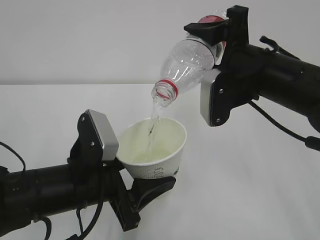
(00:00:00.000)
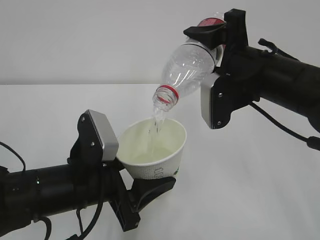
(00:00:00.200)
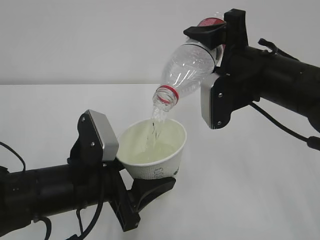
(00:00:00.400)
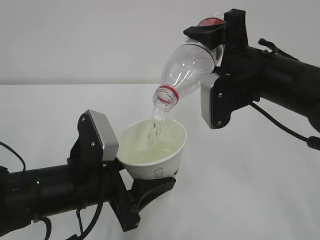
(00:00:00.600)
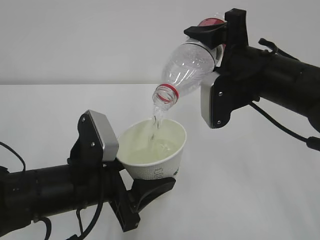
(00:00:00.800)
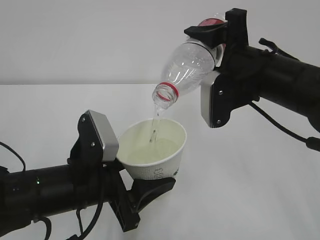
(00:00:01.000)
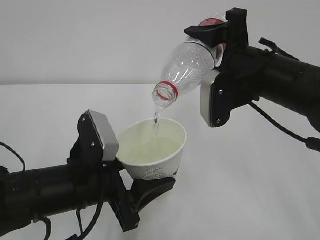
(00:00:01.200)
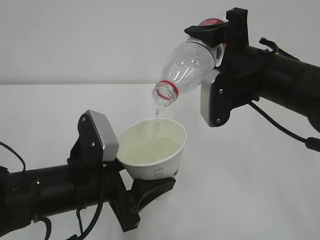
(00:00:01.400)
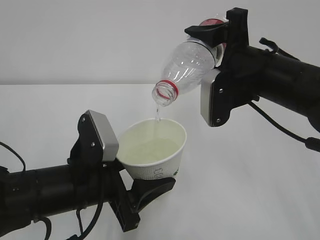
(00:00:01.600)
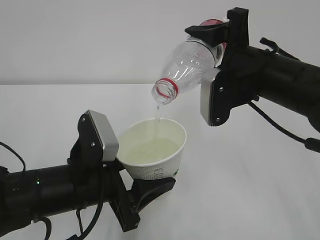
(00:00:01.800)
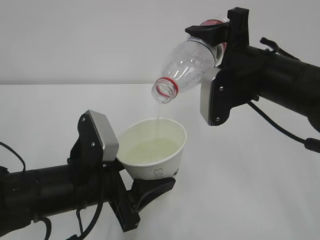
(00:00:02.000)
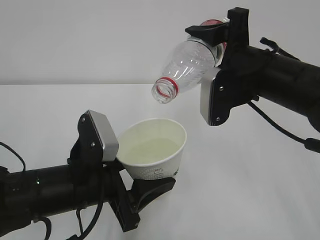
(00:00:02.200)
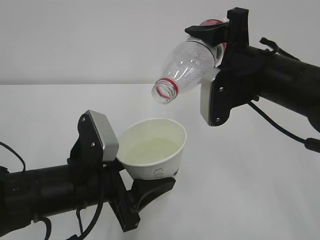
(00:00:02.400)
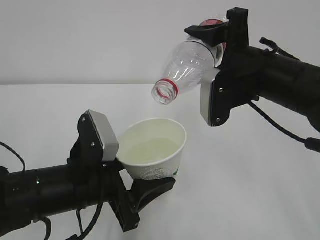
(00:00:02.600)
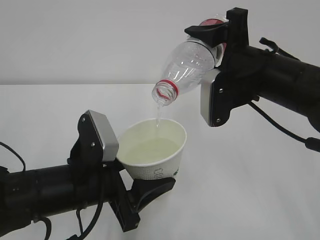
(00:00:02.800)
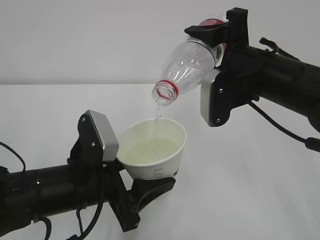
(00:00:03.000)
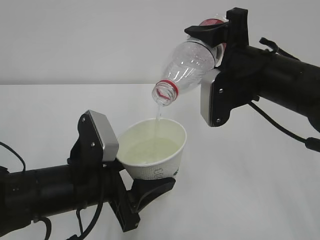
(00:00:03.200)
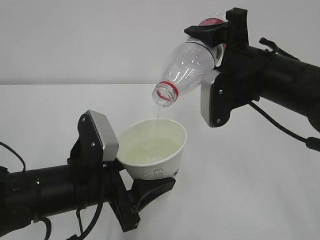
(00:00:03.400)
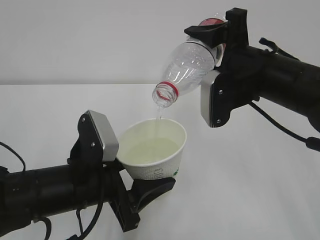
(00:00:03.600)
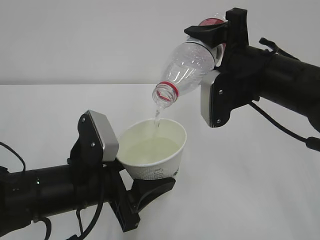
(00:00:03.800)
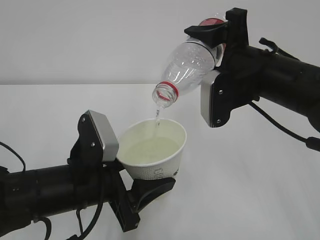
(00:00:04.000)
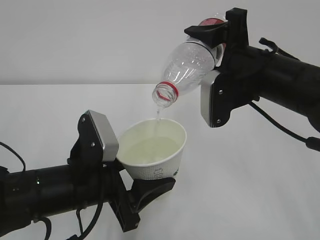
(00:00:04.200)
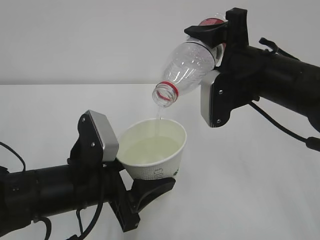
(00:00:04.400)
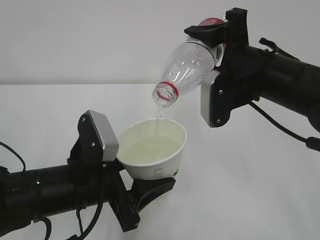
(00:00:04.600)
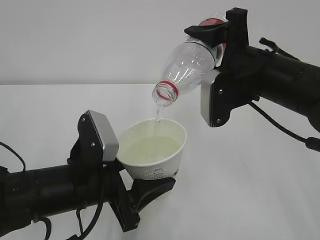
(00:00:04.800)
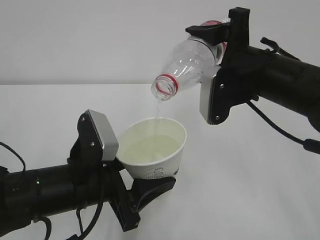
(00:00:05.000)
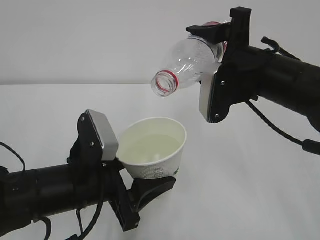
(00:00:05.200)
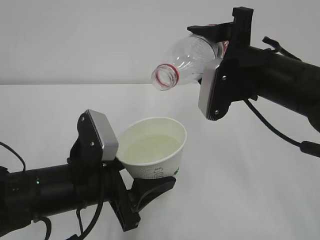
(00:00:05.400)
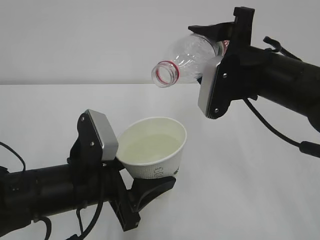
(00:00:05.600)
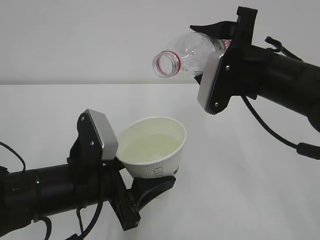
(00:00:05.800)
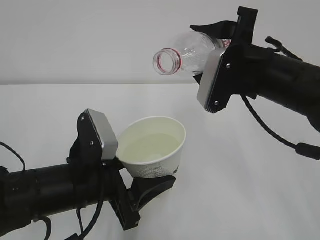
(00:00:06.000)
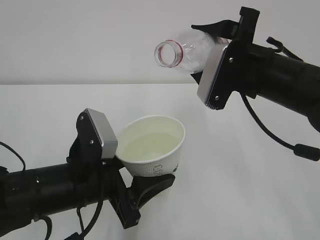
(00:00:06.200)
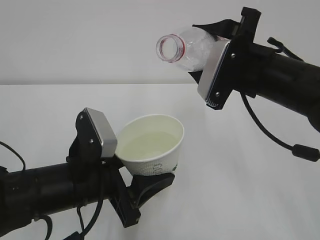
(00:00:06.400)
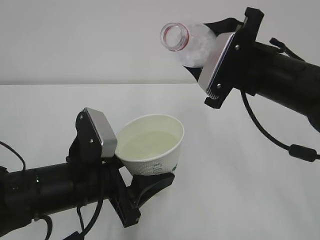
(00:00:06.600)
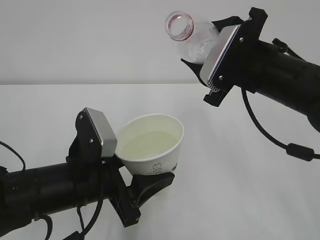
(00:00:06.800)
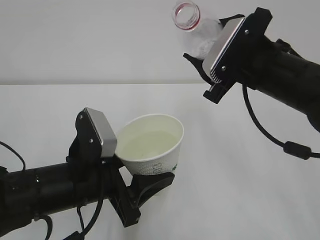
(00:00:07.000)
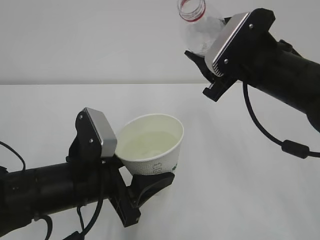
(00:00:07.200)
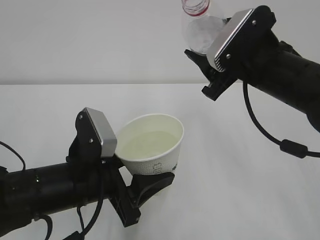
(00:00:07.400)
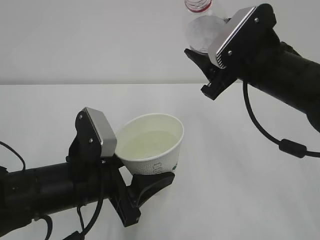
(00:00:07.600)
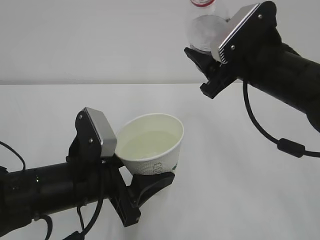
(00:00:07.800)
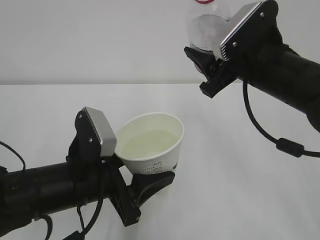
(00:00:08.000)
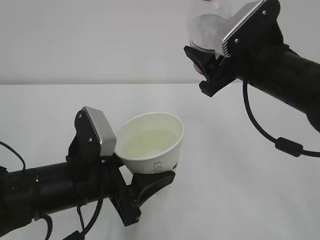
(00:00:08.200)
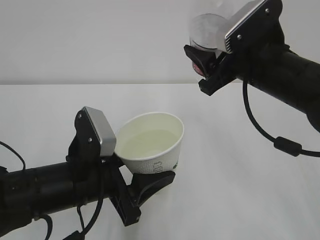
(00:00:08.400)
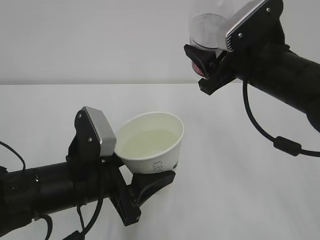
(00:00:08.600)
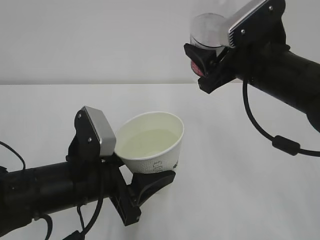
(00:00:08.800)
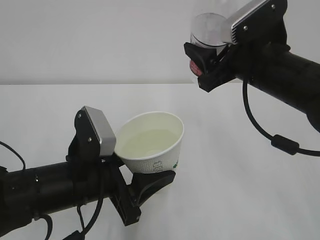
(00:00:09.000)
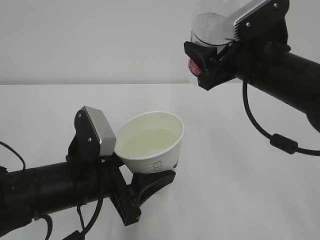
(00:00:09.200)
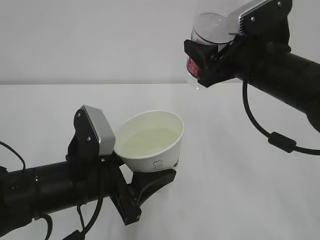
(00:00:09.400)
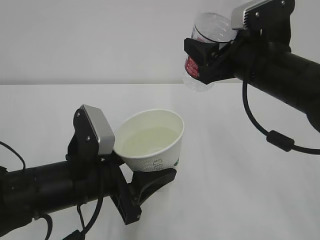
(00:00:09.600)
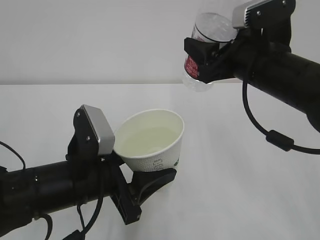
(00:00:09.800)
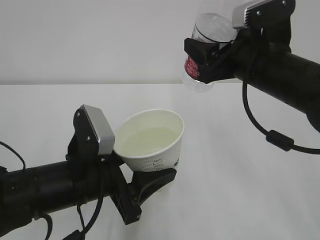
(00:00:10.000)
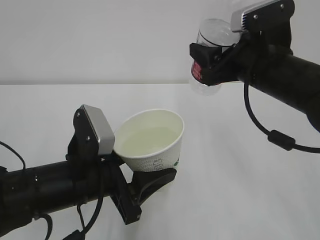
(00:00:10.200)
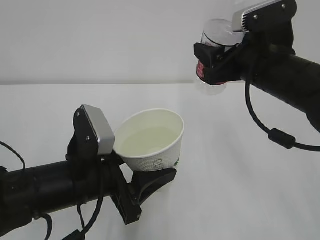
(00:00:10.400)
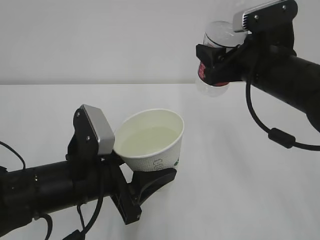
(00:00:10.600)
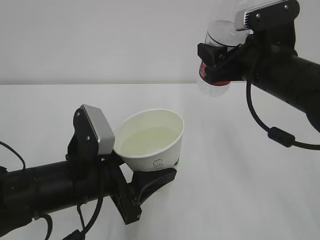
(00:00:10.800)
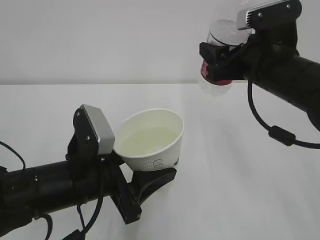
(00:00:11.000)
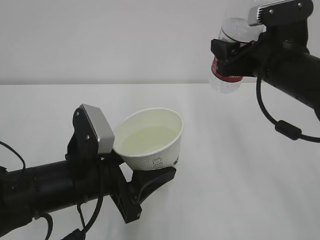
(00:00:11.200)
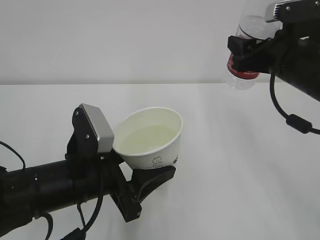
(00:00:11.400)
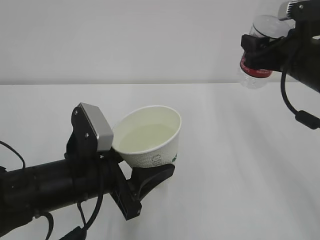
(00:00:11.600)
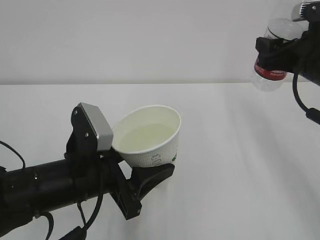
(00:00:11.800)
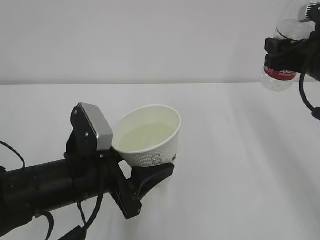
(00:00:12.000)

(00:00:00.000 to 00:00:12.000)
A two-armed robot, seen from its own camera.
00:00:00.000 - 00:00:04.400: The two grippers keep their place.
00:00:07.600 - 00:00:09.000: There are only small adjustments of the grippers.
00:00:09.000 - 00:00:10.400: The grippers stay close to where they were, moving slightly.
00:00:10.400 - 00:00:12.000: The right gripper goes approximately 10 cm to the right.

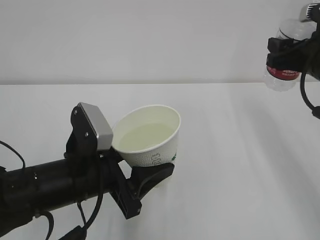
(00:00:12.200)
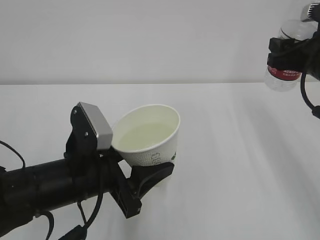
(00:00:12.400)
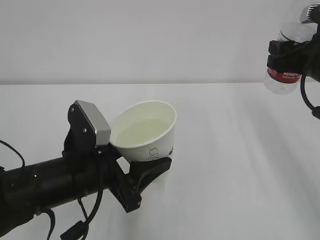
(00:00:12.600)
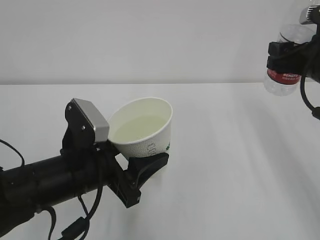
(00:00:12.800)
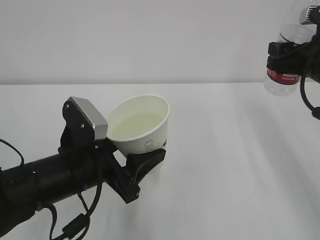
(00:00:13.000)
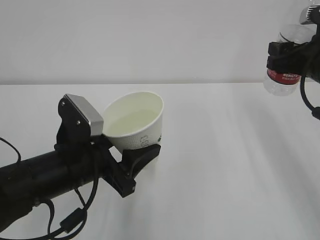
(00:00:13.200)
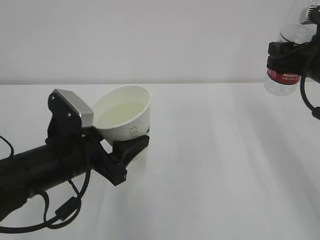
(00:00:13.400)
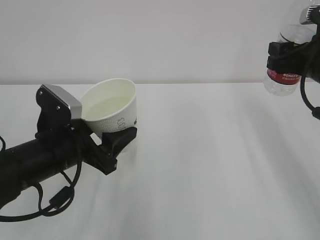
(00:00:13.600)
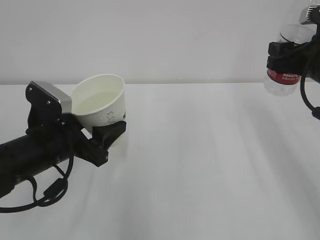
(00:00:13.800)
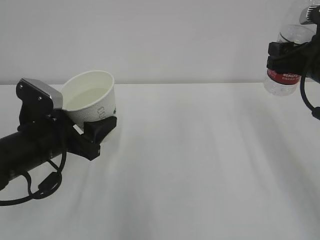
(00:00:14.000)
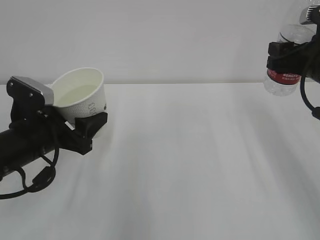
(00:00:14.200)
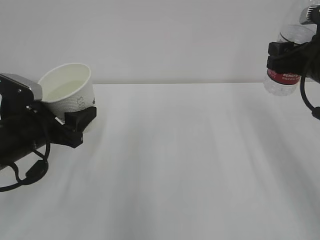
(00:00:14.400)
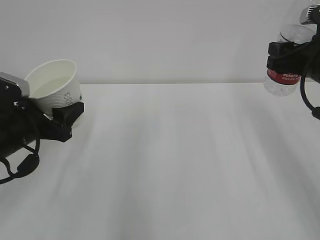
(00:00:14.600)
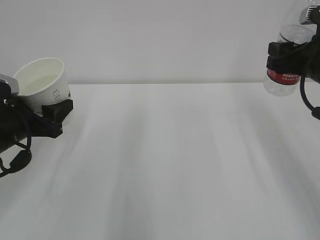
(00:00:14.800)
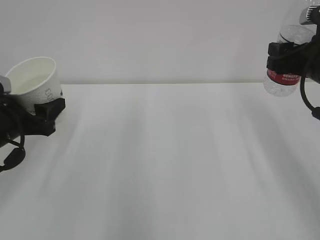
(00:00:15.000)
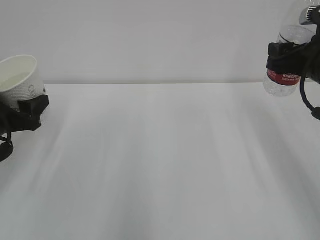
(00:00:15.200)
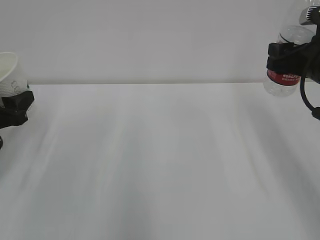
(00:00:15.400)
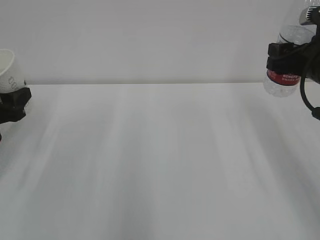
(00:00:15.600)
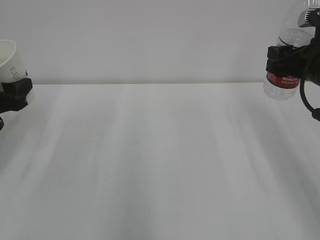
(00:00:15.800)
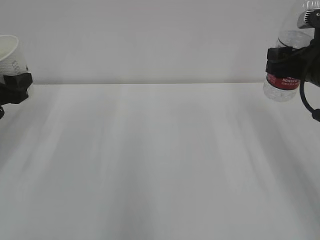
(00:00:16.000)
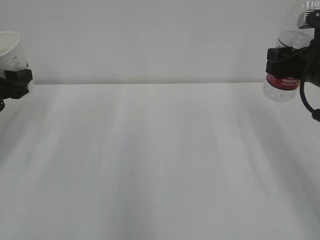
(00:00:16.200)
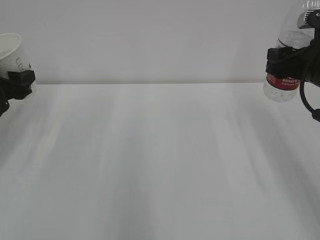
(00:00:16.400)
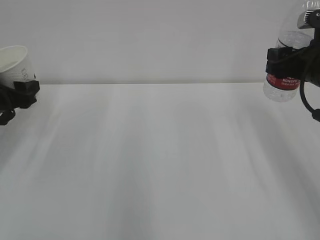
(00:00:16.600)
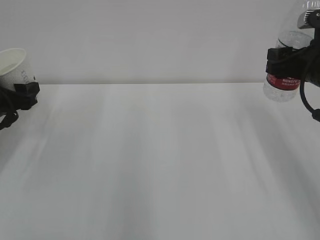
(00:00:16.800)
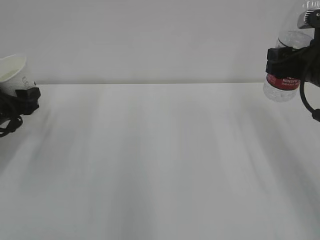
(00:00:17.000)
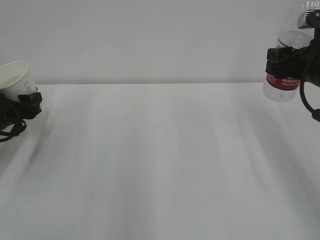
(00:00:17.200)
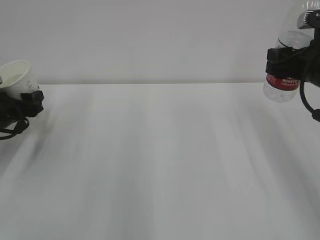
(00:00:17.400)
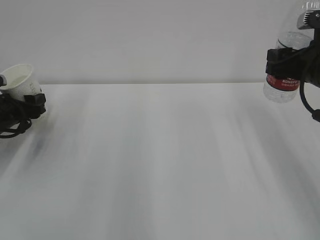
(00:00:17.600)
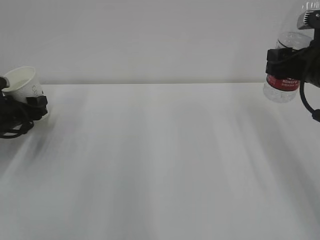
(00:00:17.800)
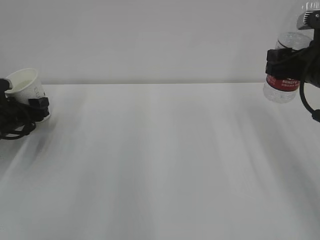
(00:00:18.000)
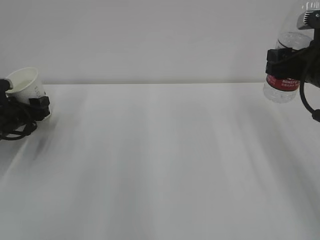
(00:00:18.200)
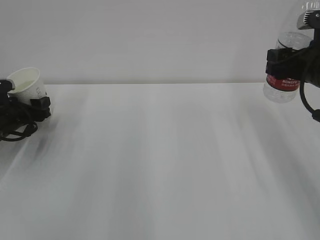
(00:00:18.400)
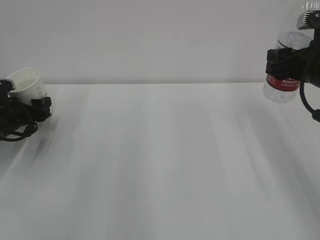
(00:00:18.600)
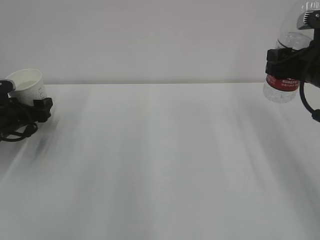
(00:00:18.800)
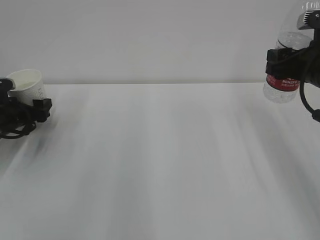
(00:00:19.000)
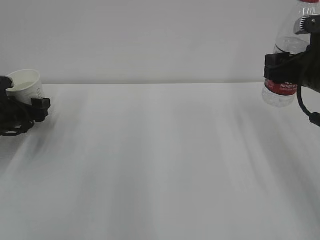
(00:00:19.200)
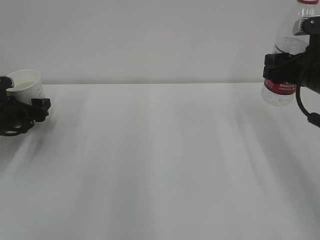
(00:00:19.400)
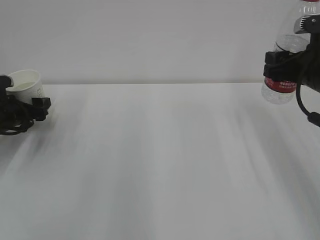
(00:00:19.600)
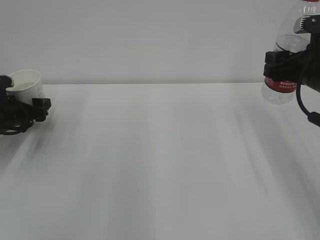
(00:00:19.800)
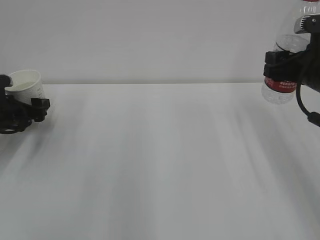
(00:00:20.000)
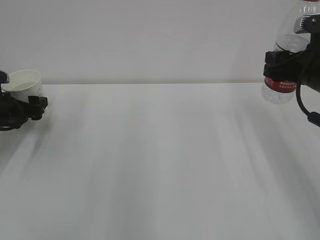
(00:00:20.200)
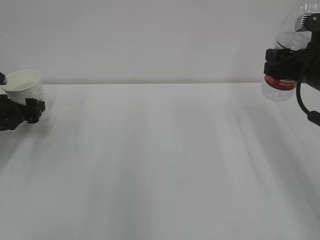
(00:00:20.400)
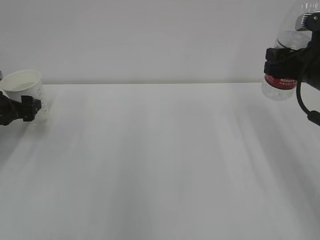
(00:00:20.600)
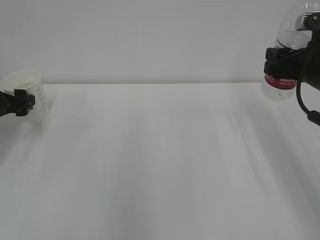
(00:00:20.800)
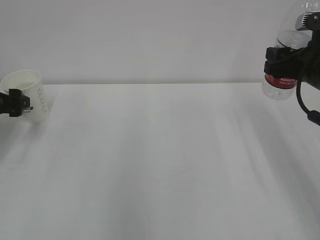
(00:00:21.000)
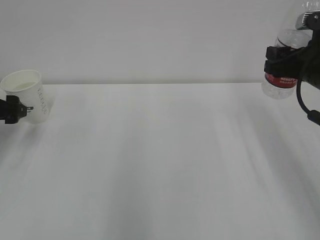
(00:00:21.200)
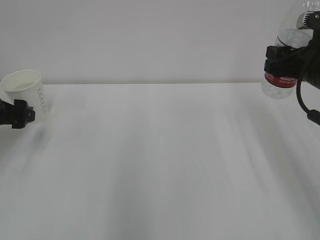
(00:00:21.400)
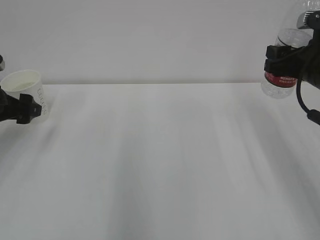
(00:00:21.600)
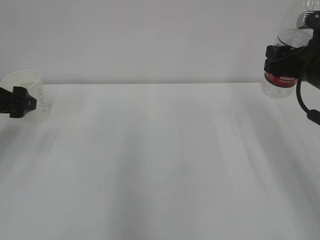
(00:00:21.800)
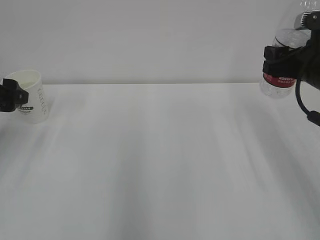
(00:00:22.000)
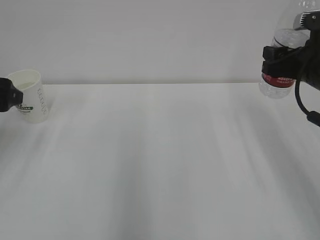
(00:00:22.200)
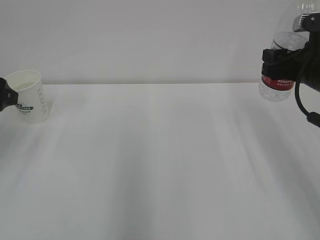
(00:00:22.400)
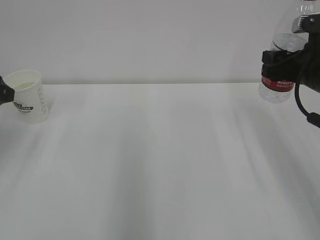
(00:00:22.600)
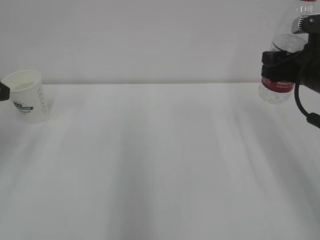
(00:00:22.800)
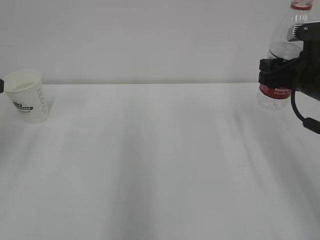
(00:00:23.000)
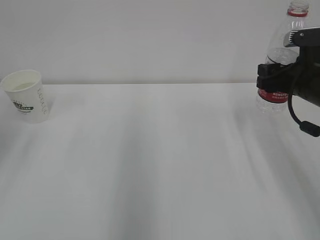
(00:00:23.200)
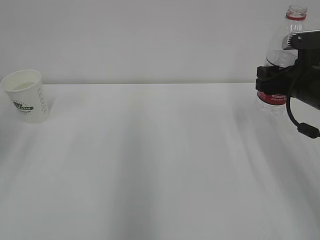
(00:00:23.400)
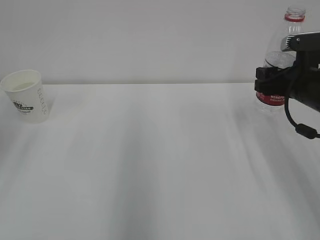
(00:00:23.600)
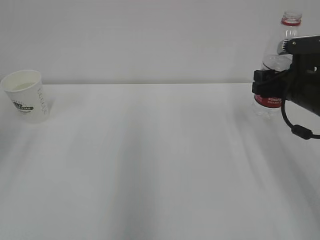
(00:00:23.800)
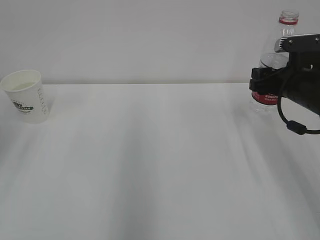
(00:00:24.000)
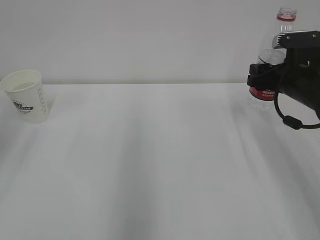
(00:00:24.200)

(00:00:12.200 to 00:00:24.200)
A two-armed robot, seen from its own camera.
00:00:12.200 - 00:00:13.800: The left gripper goes roughly 5 cm to the left.
00:00:13.800 - 00:00:15.200: The left gripper is displaced to the left by roughly 10 cm.
00:00:15.200 - 00:00:16.600: The left gripper heads forward, covering about 5 cm.
00:00:16.600 - 00:00:18.200: The left gripper is displaced downward by roughly 10 cm.
00:00:18.200 - 00:00:19.800: The left gripper opens.
00:00:19.800 - 00:00:21.200: The left gripper shifts roughly 10 cm upward and backward.
00:00:21.200 - 00:00:22.600: The left gripper goes approximately 10 cm upward and backward.
00:00:22.600 - 00:00:24.200: The right gripper ends up approximately 5 cm from where it was.
